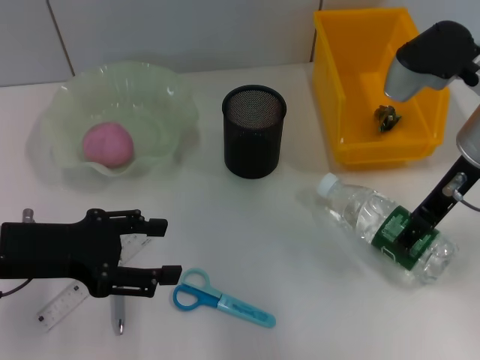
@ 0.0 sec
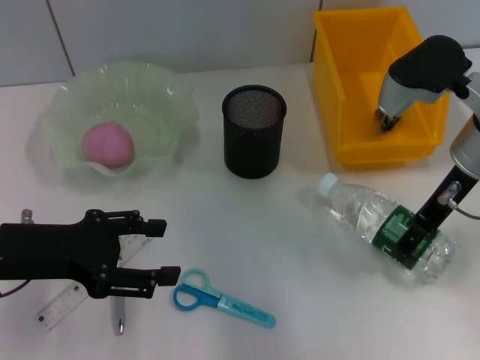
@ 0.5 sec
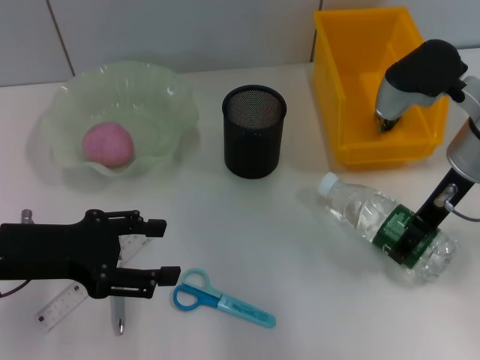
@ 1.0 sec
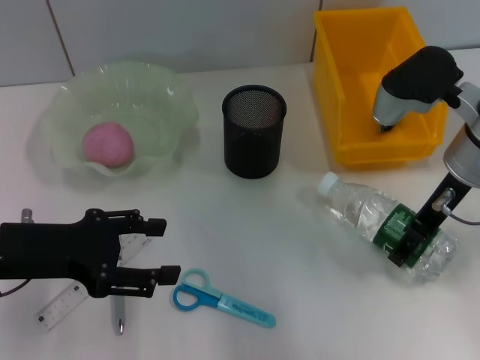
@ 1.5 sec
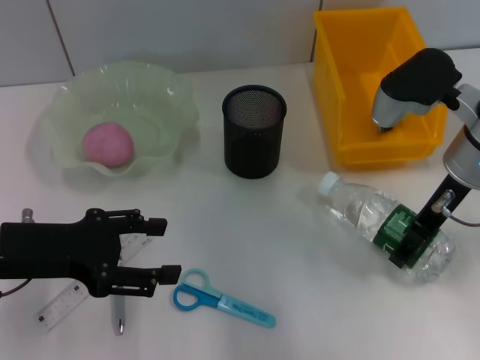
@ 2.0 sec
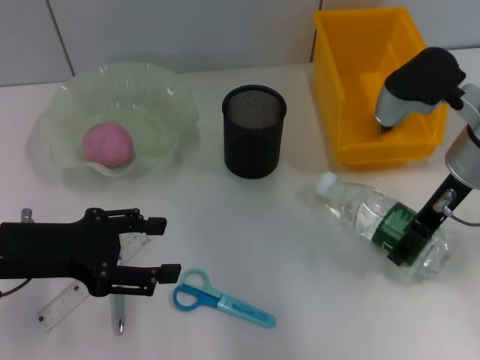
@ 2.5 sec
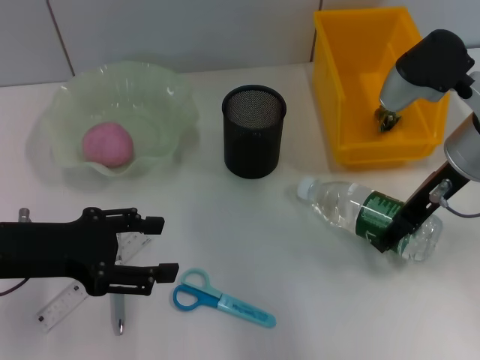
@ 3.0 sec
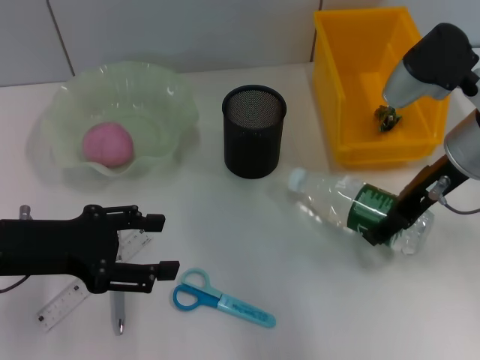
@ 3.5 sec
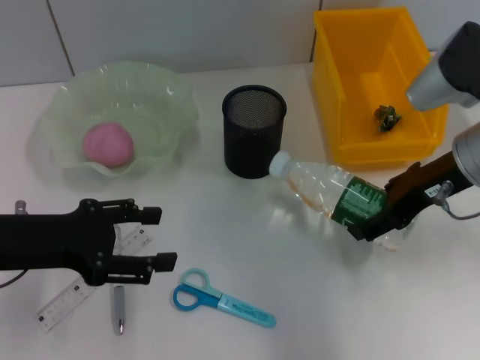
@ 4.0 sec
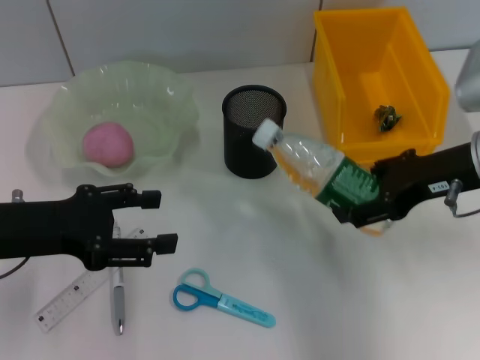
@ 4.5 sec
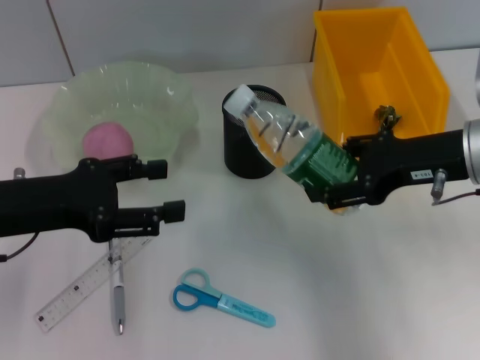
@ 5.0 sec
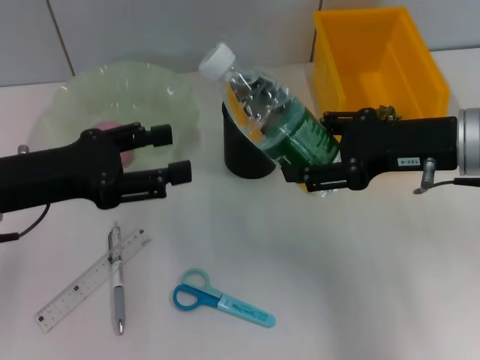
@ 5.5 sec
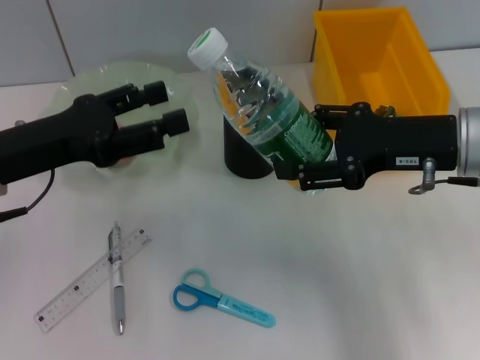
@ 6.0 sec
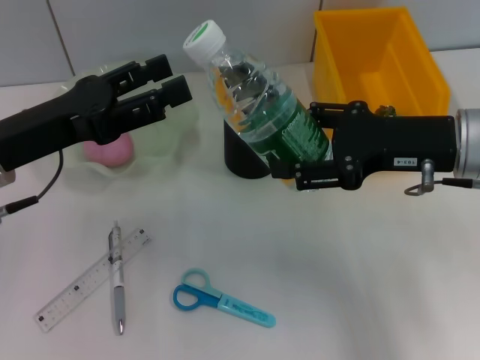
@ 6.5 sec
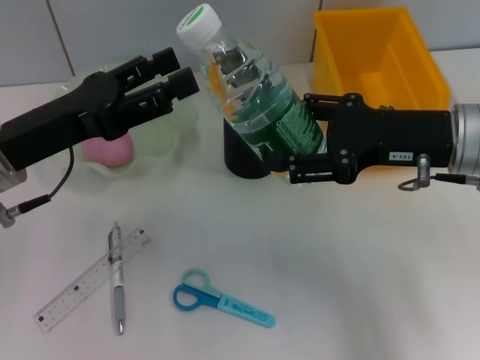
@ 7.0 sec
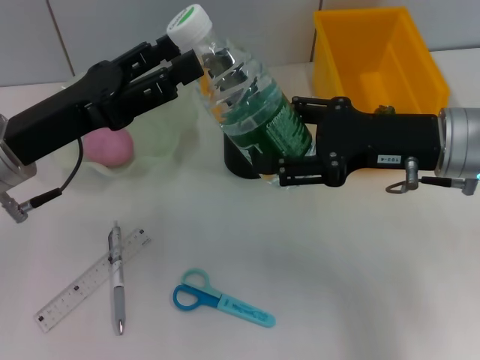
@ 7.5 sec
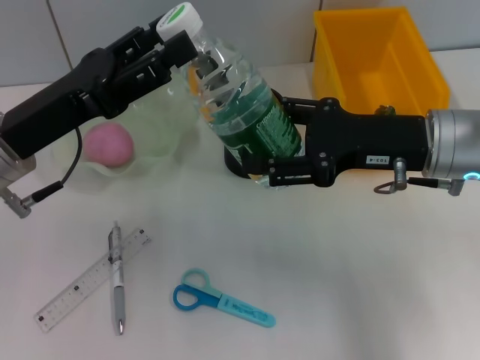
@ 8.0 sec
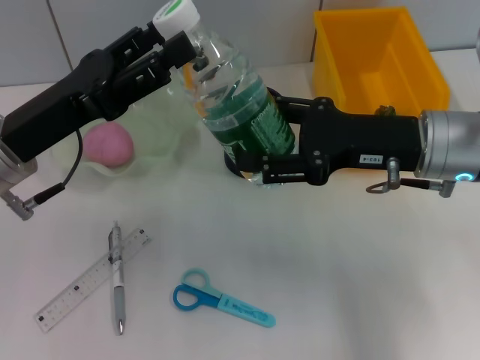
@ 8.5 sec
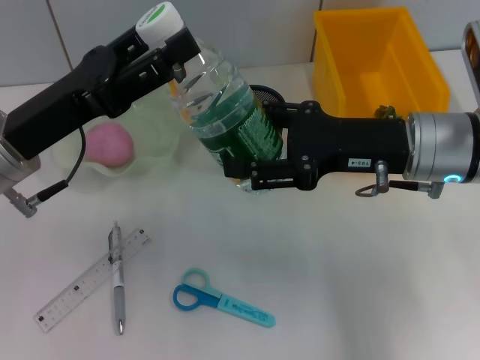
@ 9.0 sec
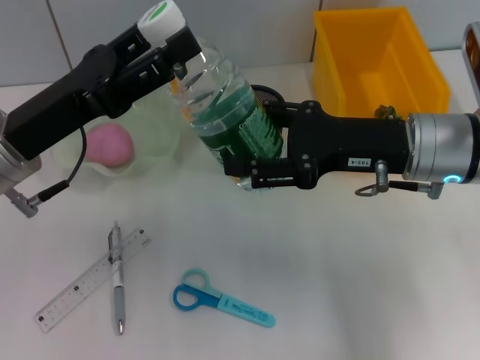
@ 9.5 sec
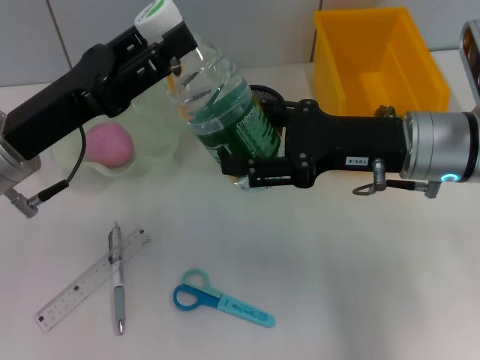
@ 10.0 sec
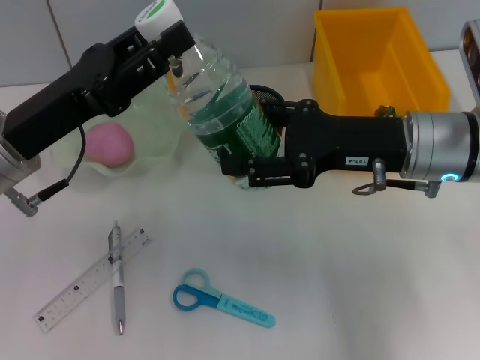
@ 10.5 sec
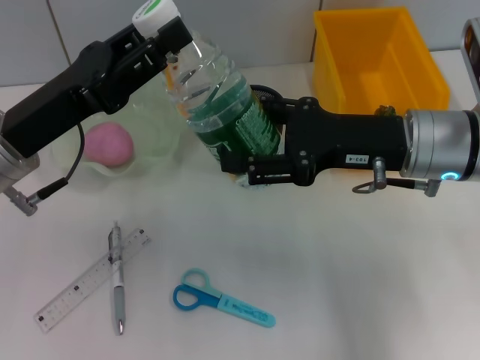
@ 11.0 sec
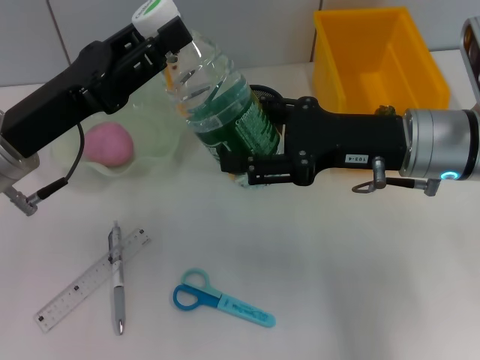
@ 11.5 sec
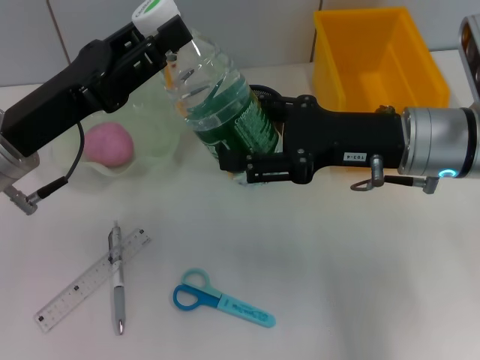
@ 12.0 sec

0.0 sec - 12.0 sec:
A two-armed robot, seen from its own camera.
0.0 sec - 2.0 sec: There are only small adjustments of the grippers.
6.0 sec - 10.0 sec: There are only small adjustments of the grippers.
10.0 sec - 12.0 sec: Both grippers stay put.

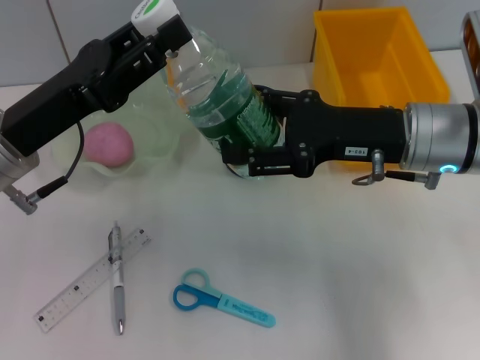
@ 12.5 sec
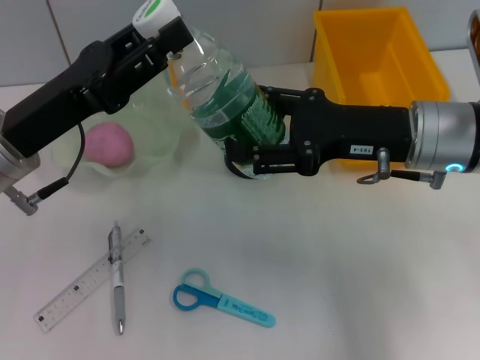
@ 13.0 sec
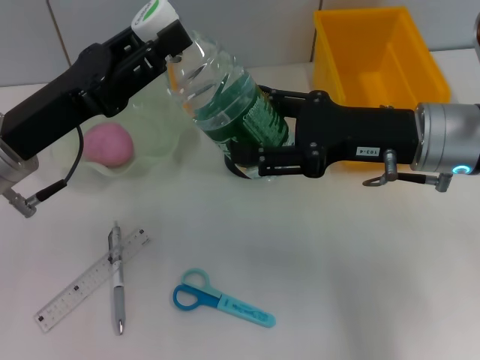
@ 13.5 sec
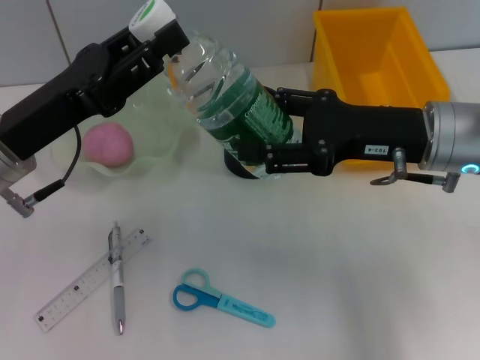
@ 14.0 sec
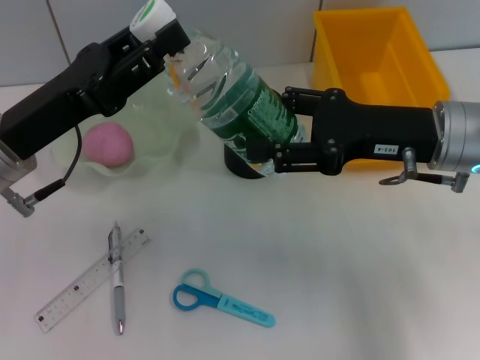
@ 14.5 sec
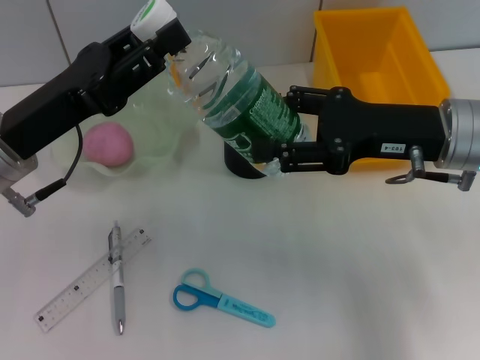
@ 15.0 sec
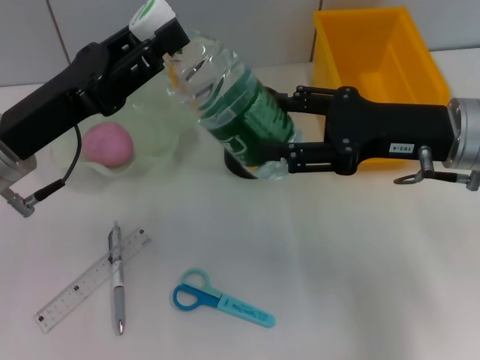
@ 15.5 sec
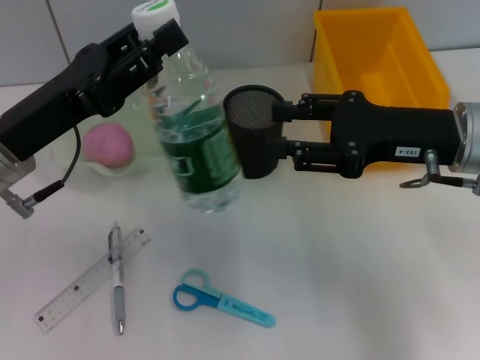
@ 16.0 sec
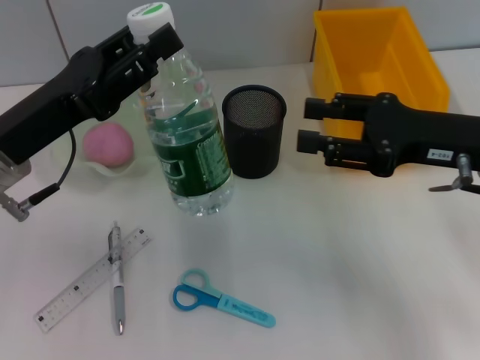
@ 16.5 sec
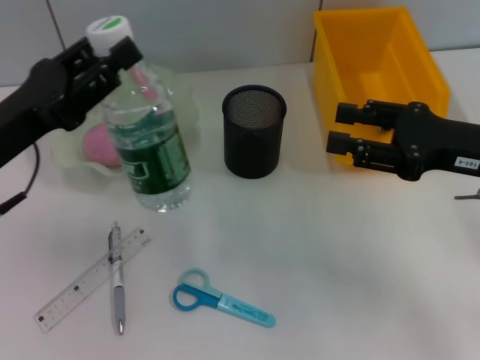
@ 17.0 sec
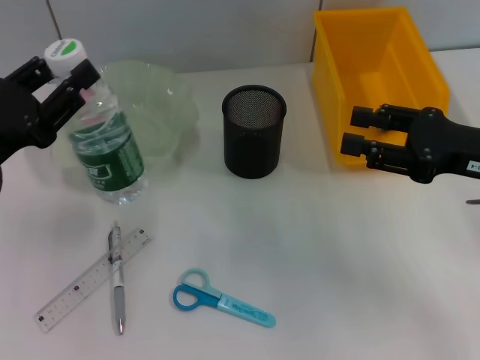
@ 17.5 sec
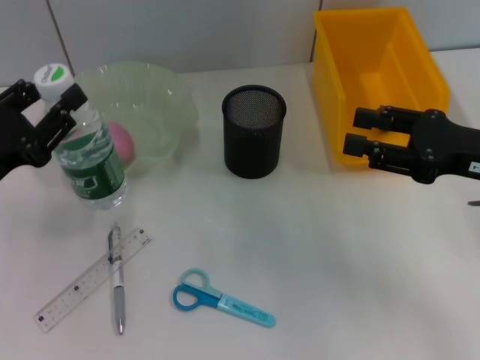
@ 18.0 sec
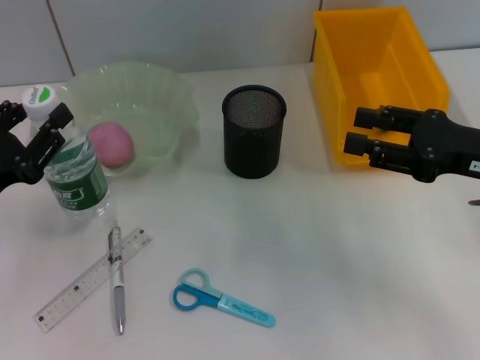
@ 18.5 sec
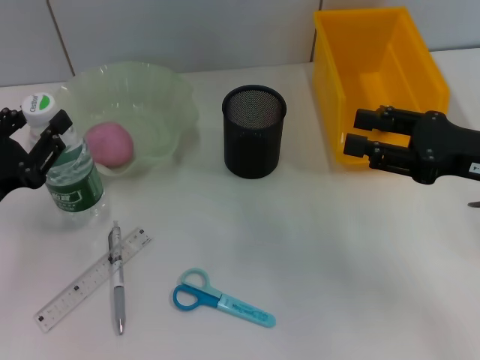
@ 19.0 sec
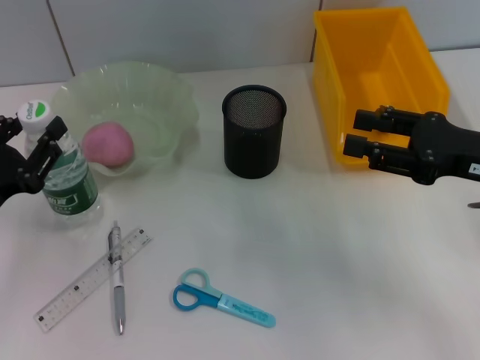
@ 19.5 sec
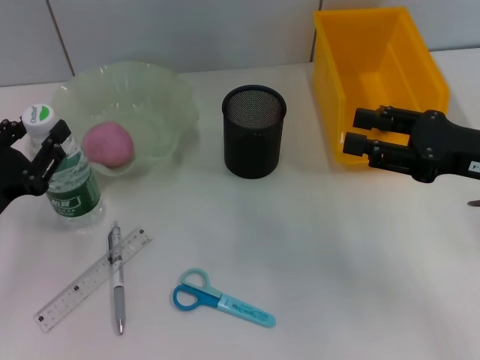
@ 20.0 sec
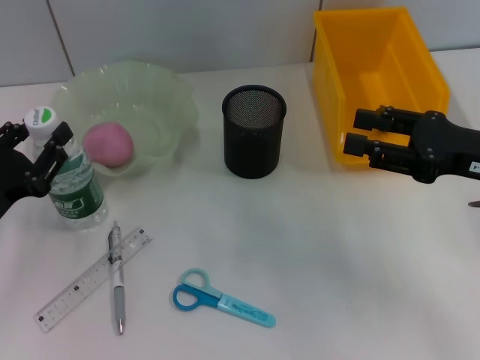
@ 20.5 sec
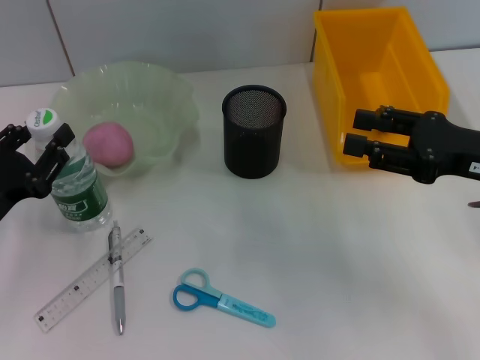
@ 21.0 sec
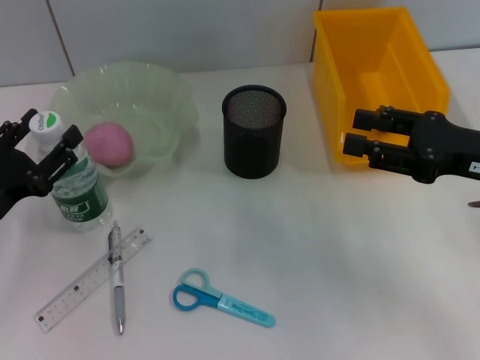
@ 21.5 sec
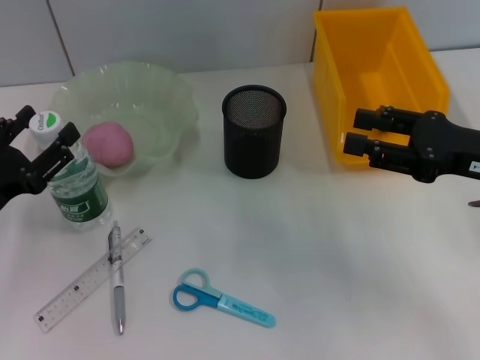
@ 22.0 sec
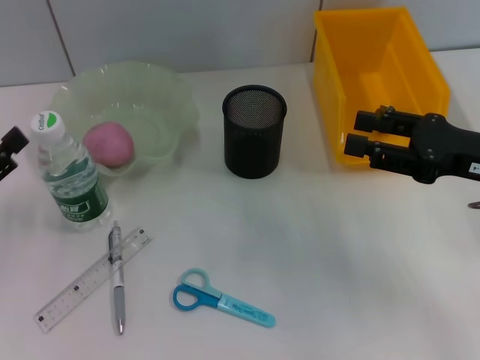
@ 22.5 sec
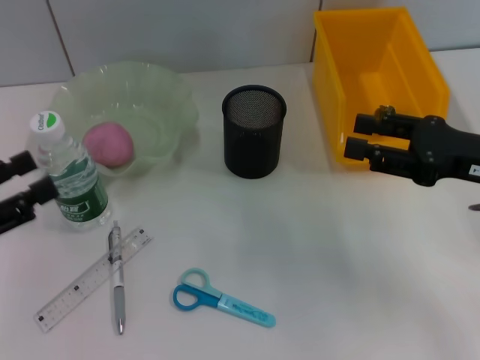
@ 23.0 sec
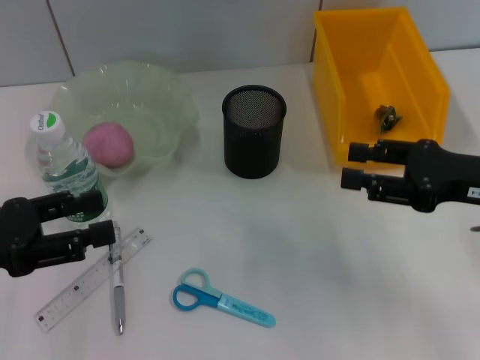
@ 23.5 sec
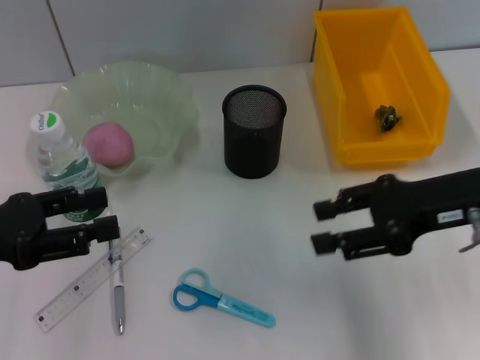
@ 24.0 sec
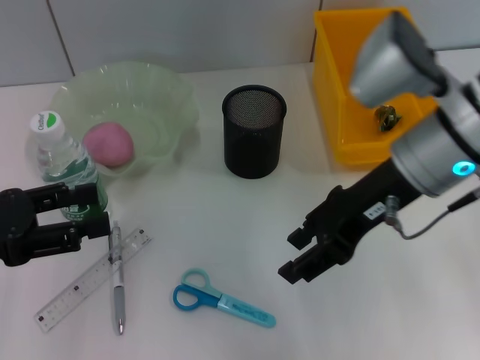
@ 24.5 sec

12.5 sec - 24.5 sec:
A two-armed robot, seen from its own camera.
Step, 12.5 sec - 15.5 sec: Pass the water bottle from the right hand to the left hand.
Step, 16.0 sec - 22.0 sec: Place the water bottle on the table with the left hand.
12.5 sec - 14.5 sec: The grippers make only small movements.
14.5 sec - 16.5 sec: The grippers stay close to where they were, moving slightly.
16.5 sec - 18.5 sec: The left gripper travels to the left and downward by about 10 cm.
18.5 sec - 20.5 sec: There are only small adjustments of the grippers.
20.5 sec - 22.5 sec: The left gripper ends up about 5 cm from where it was, and opens its fingers.
22.5 sec - 24.5 sec: The left gripper travels upward by roughly 5 cm; the right gripper heads to the left and upward, covering approximately 15 cm.

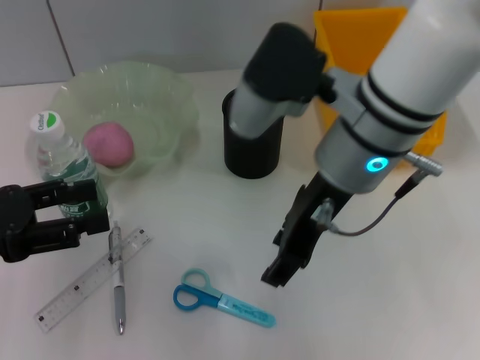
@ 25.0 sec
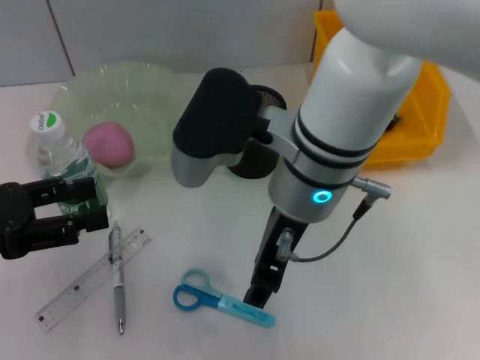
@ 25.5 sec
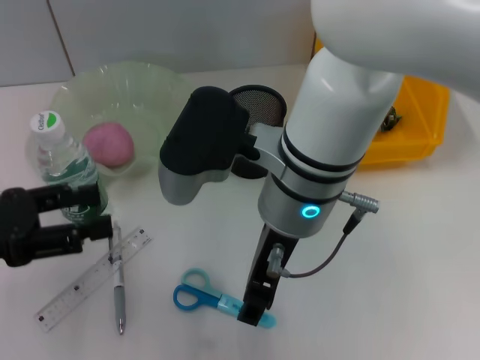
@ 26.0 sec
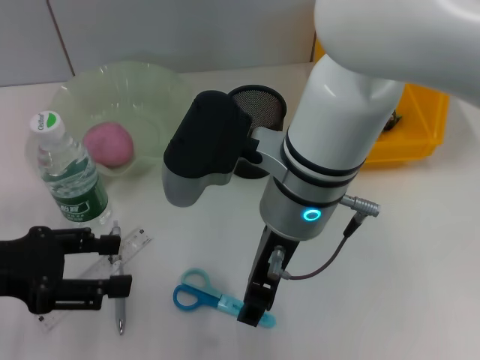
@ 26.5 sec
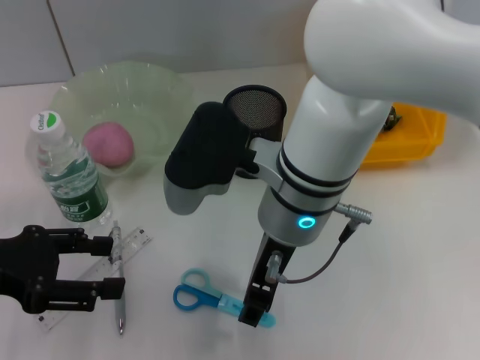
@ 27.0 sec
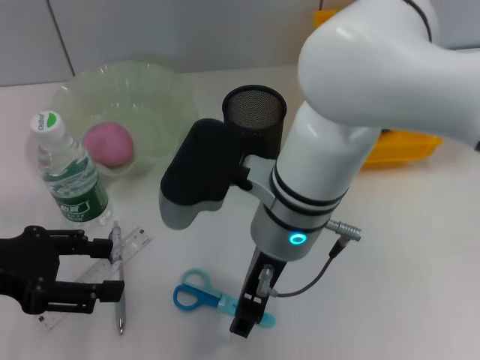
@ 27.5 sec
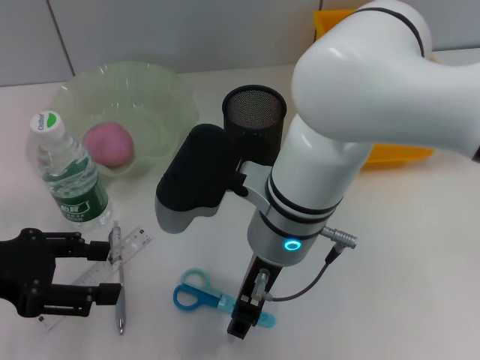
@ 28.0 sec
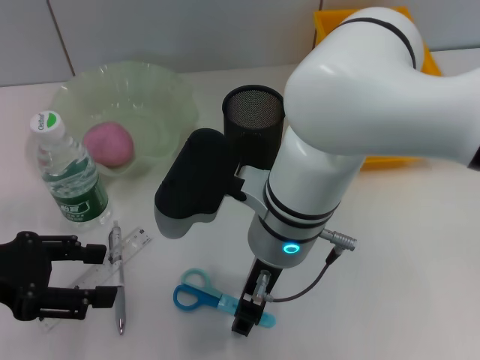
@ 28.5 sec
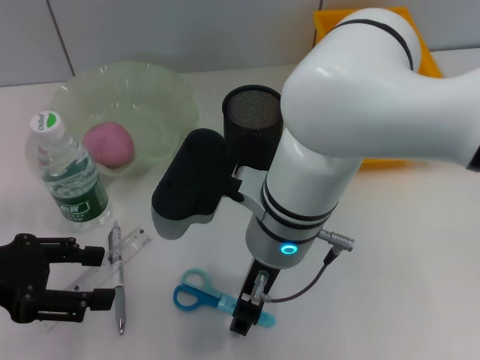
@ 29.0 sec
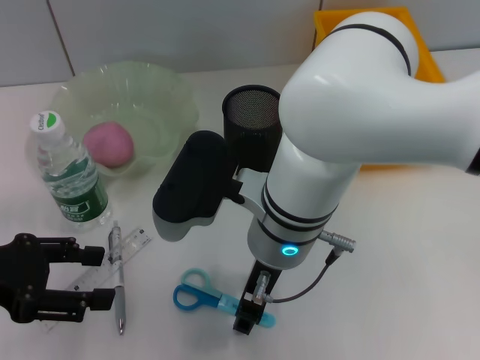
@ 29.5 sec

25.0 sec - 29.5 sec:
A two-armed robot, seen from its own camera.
25.0 sec - 27.0 sec: The right gripper changes place by some 5 cm.
